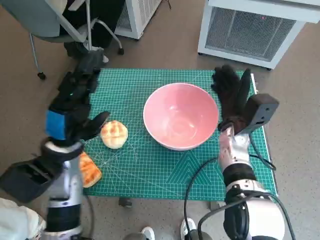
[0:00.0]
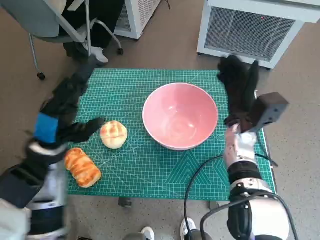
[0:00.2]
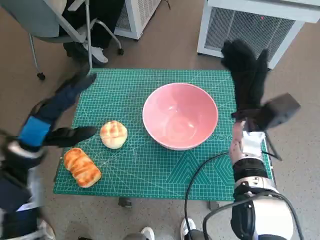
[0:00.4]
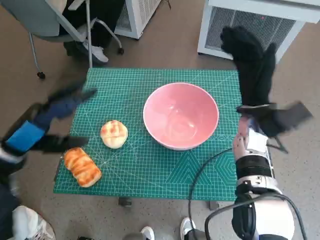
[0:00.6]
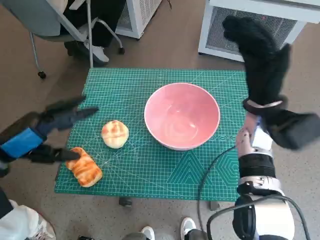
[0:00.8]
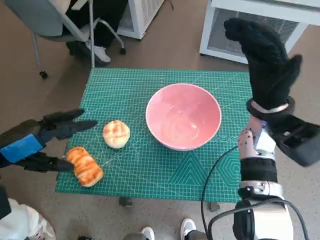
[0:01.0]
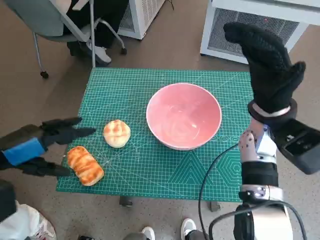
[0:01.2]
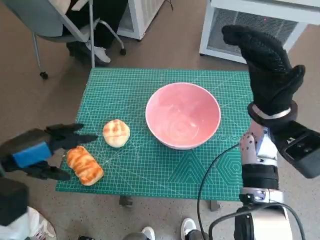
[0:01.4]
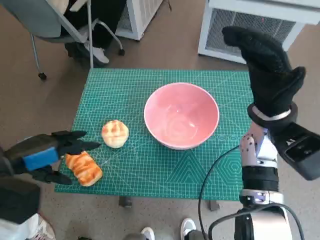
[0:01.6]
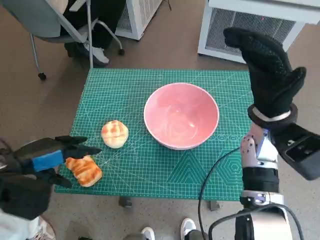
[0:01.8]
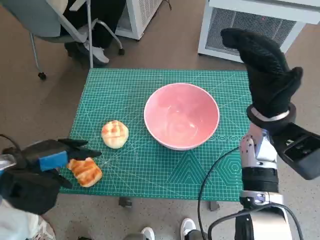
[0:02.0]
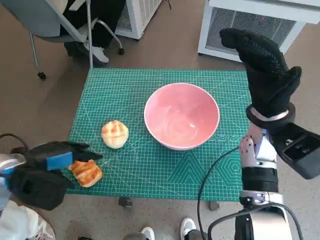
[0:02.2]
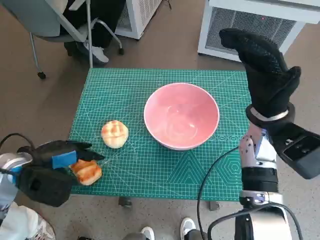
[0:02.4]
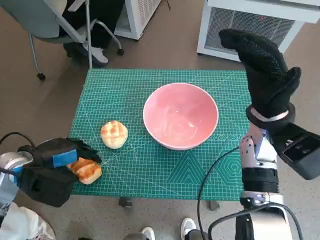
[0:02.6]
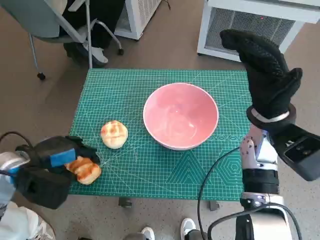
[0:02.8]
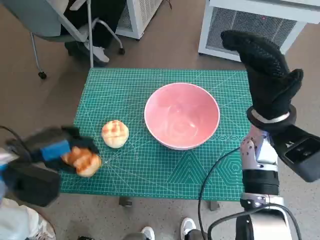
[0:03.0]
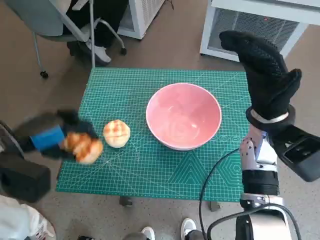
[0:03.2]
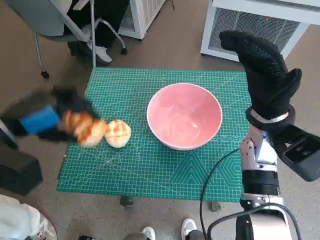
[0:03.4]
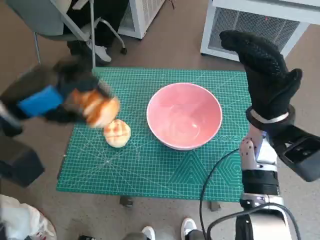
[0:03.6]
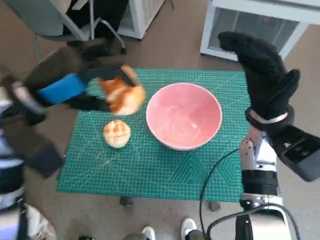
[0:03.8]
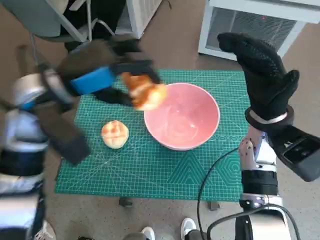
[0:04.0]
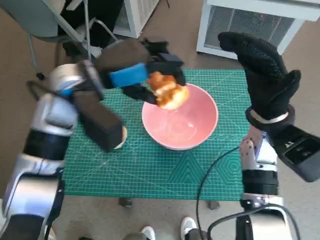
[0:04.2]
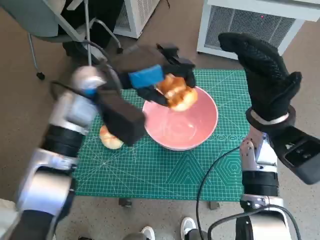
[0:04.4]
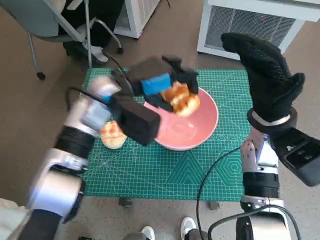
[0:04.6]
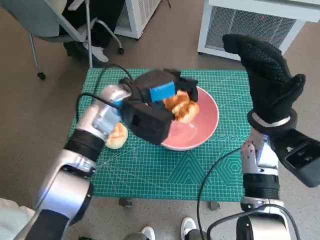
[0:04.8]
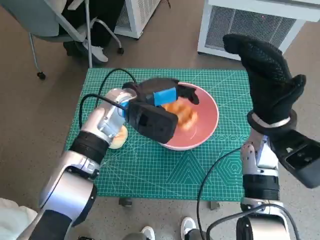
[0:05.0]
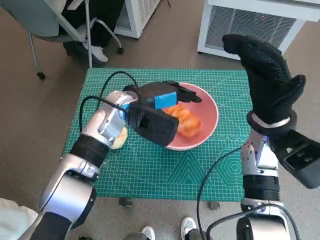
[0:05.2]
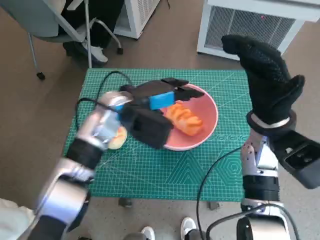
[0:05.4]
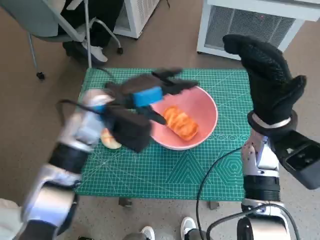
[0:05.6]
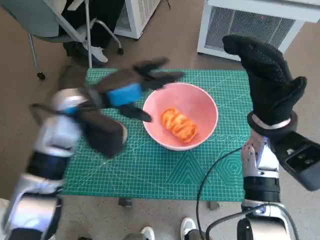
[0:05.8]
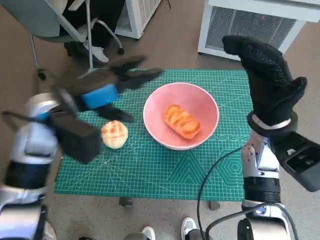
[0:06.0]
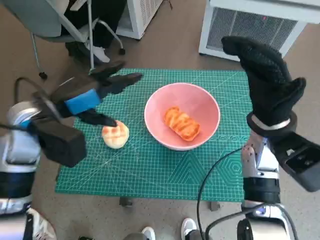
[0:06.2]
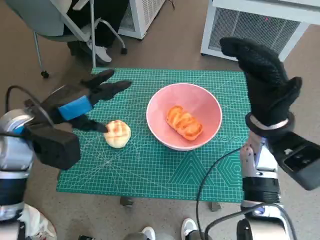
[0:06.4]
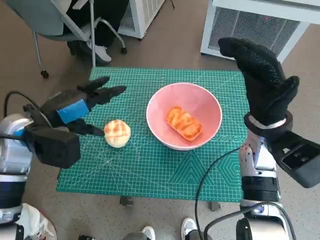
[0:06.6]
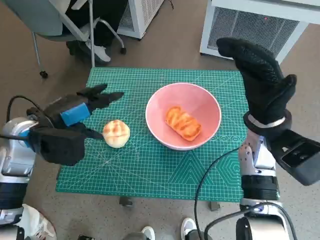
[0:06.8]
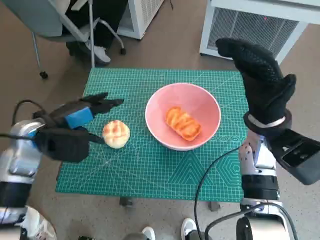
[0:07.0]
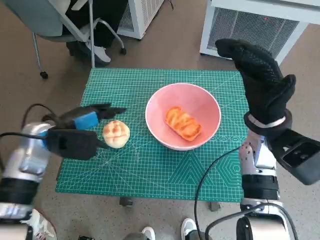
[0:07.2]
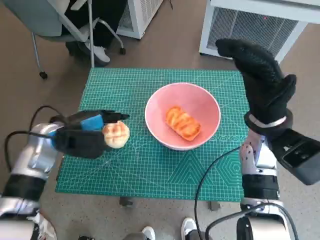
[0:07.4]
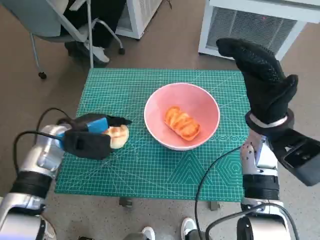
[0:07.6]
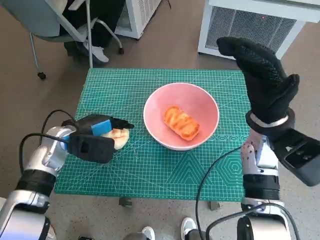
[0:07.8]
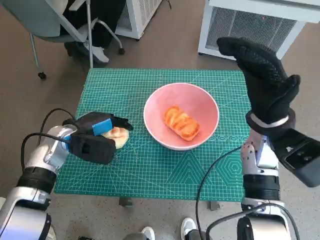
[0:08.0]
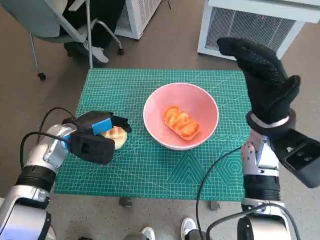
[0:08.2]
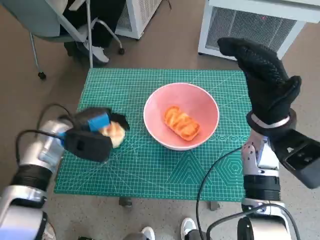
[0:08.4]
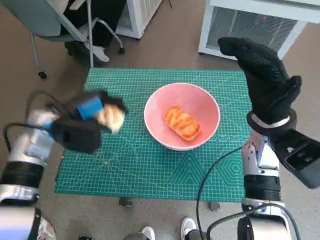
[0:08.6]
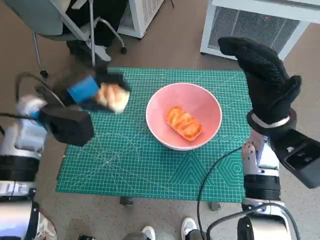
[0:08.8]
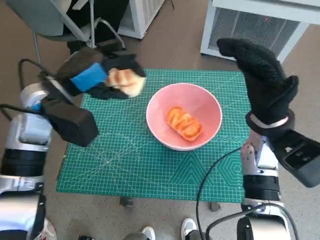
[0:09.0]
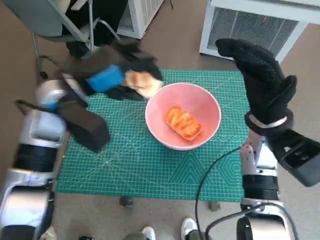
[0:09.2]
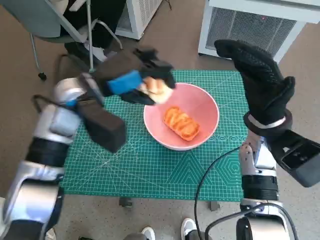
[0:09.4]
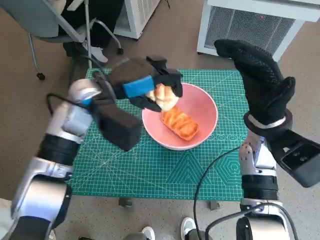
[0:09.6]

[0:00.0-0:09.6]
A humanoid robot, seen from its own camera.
Task of the whole recording: Push the bowl to the center of the table and put the bread into the bowl.
Step, 0:00.2 to 0:02.8: Grasp the long bread with left hand.
Step, 0:03.0 to 0:05.4: Place the long bread in pink bowl with left hand.
Step, 0:05.6 to 0:08.2: Grasp the round bread with left hand.
0:00.0 to 0:01.6: The left hand moves to the left, approximately 10 cm. Meanwhile the right hand shifts about 10 cm upward.
0:03.2 to 0:04.8: The left hand travels to the right and forward by roughly 20 cm.
0:04.8 to 0:06.4: The left hand moves to the left and backward, some 15 cm.
0:06.4 to 0:08.0: The left hand goes roughly 10 cm downward.
0:08.0 to 0:09.6: The left hand is displaced upward and to the right by about 15 cm.

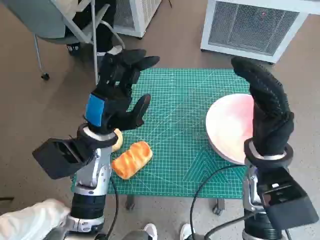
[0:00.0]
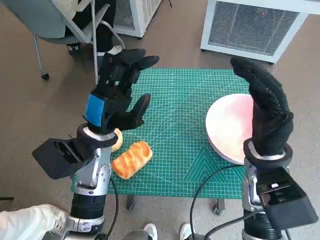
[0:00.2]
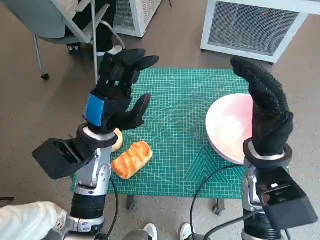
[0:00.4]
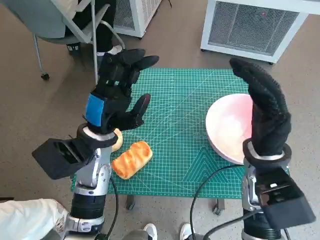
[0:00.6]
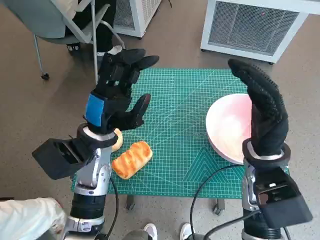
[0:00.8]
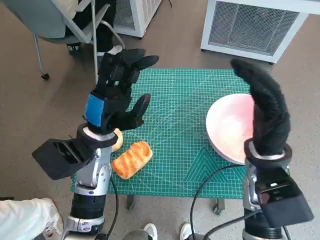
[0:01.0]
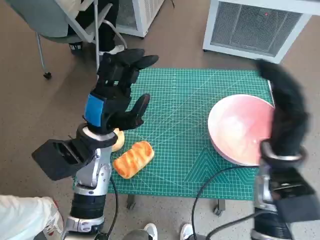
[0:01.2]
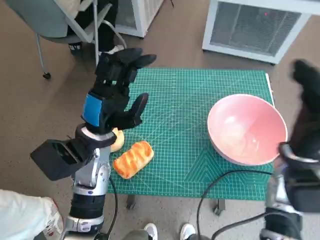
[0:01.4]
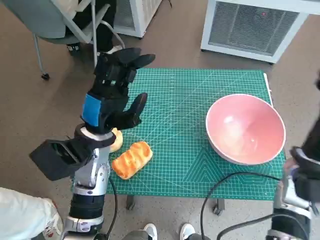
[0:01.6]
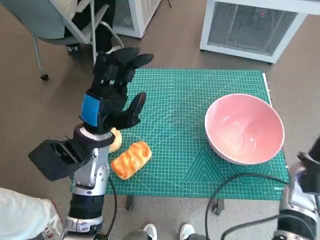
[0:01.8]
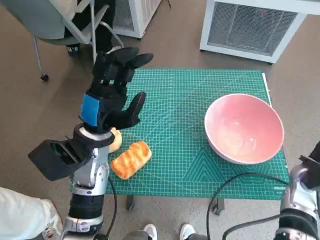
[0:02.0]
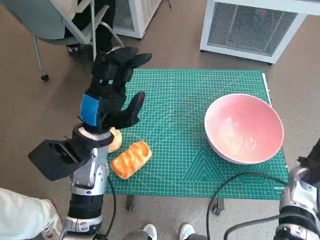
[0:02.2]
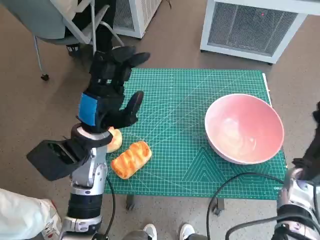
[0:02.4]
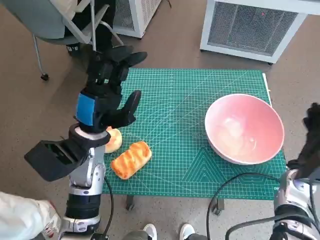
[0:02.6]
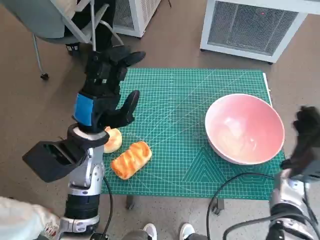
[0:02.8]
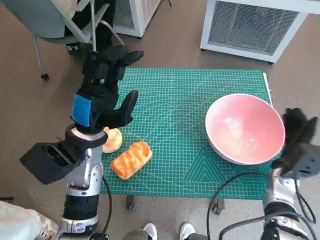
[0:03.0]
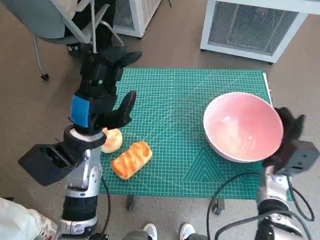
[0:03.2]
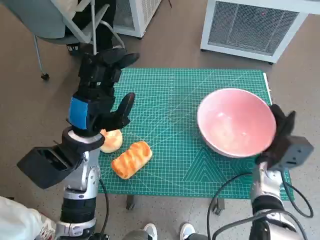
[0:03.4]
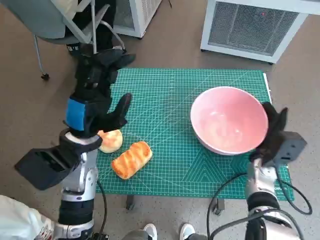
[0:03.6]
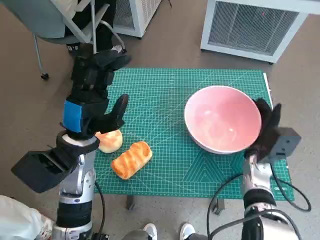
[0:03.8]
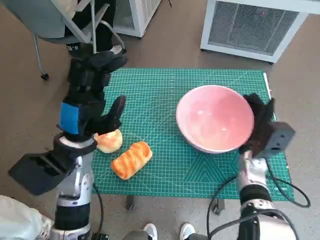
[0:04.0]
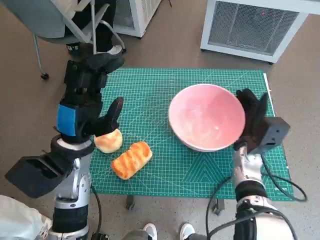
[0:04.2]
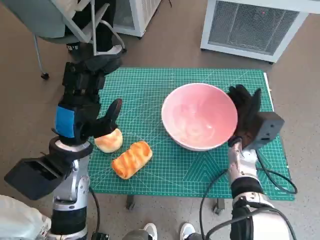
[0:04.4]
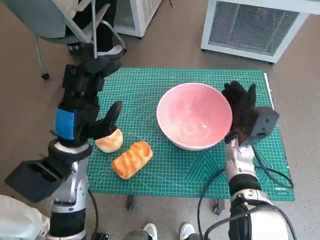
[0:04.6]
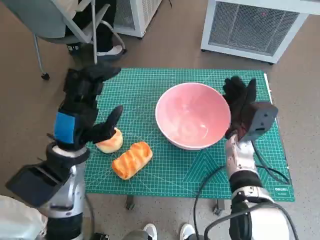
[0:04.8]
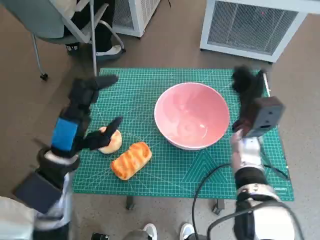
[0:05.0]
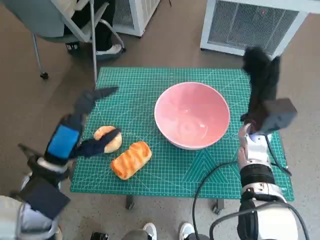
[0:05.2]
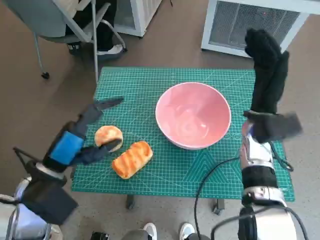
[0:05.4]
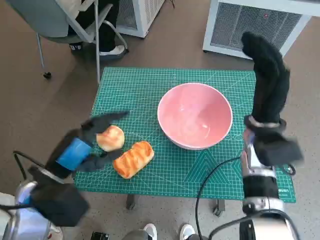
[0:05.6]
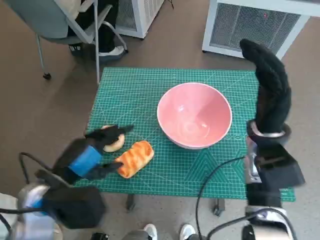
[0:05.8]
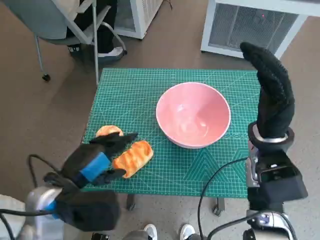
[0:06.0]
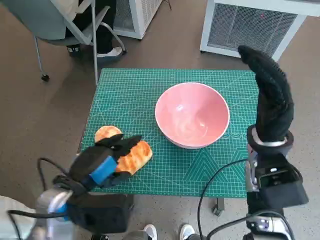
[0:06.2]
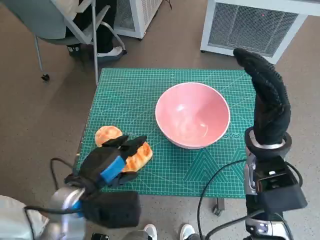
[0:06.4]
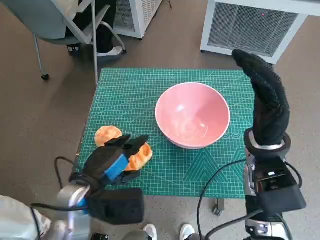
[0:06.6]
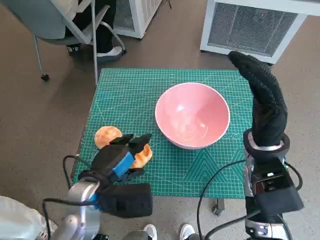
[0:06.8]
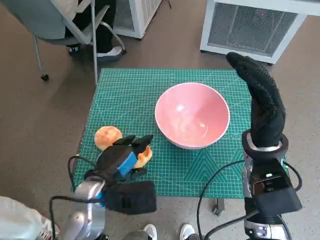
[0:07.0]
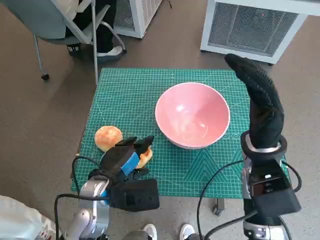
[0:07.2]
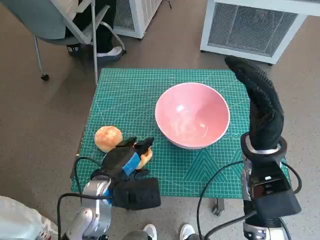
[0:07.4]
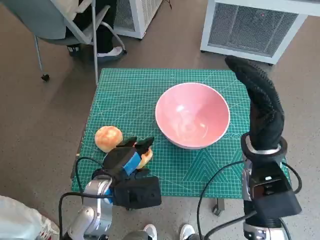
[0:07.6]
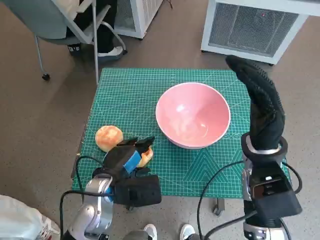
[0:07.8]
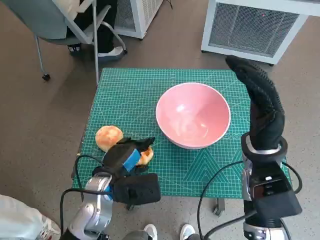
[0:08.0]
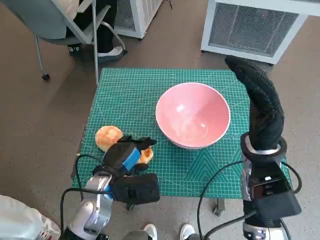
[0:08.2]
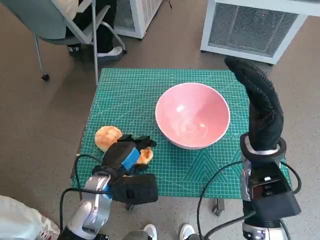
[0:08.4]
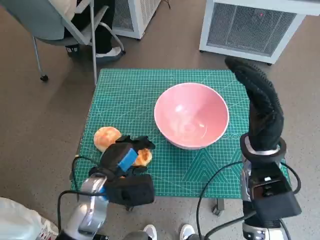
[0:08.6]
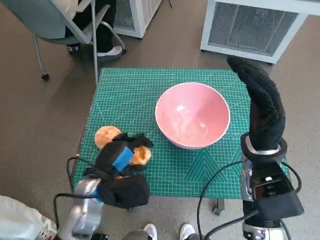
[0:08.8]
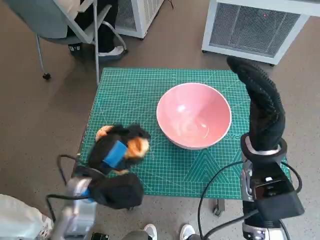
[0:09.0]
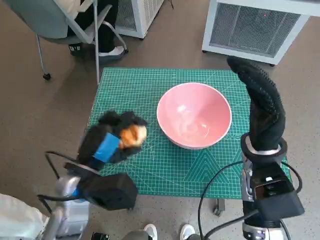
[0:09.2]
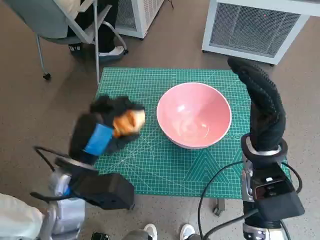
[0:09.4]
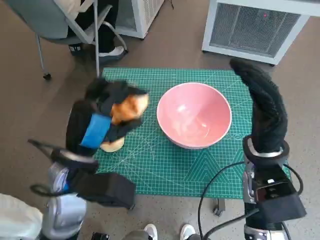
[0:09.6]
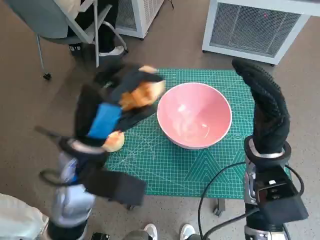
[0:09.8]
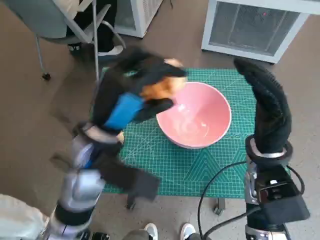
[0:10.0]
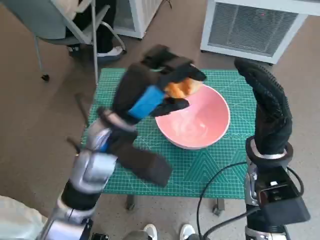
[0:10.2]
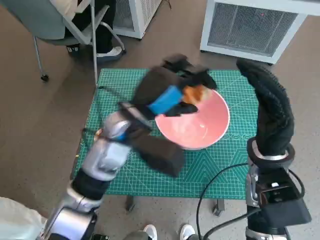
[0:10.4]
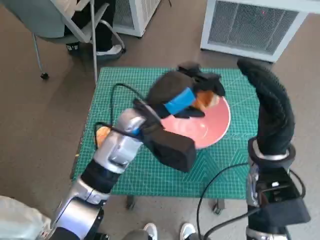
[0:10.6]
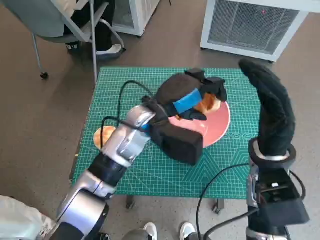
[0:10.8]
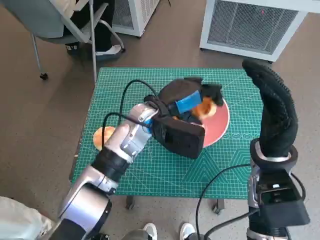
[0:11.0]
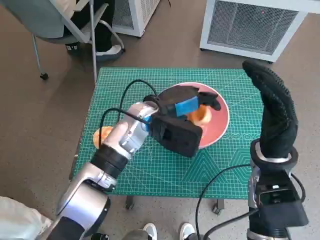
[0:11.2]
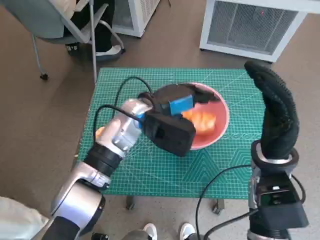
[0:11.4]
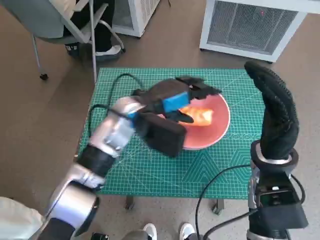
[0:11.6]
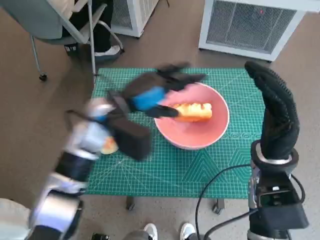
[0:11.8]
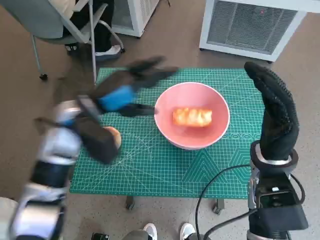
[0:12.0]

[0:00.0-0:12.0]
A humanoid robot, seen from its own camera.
Task of the whole recording: Push the bowl to the center of the table and put the bread into the bowl.
Step, 0:00.0 to 0:05.2: Move the pink bowl to the center of table with right hand.
Step, 0:05.4 to 0:08.4: Grasp the long bread with left hand.
Step, 0:08.8 to 0:11.8: Place the long bread in pink bowl with left hand.
0:01.6 to 0:03.0: The right hand shifts some 10 cm downward.
0:03.0 to 0:04.4: The right hand heads to the left, covering about 10 cm.
0:04.4 to 0:06.0: The left hand shifts approximately 5 cm backward. Meanwhile the right hand is displaced upward by roughly 10 cm.
0:06.0 to 0:07.6: The left hand moves downward and to the right, approximately 10 cm.
0:07.6 to 0:09.0: The hands stay close to where they were, moving slightly.
0:09.0 to 0:10.4: The left hand moves upward, forward and to the right, roughly 15 cm.
0:10.4 to 0:12.0: The left hand moves to the left, roughly 5 cm.
